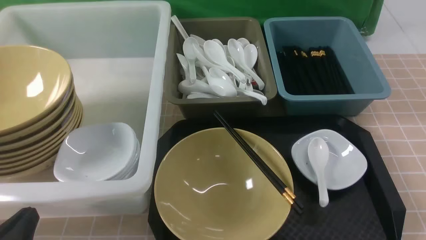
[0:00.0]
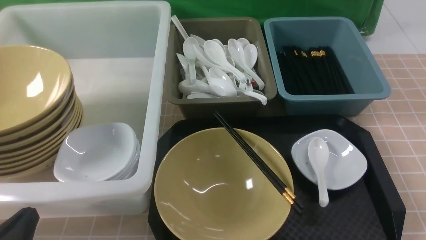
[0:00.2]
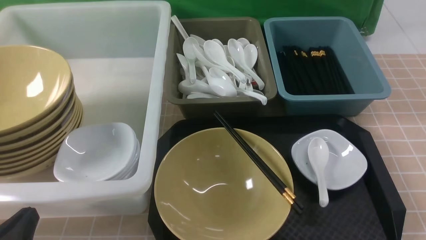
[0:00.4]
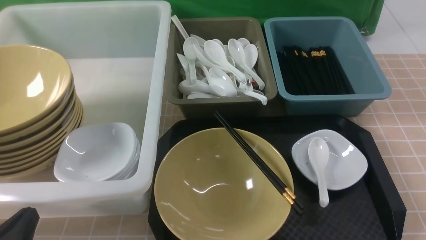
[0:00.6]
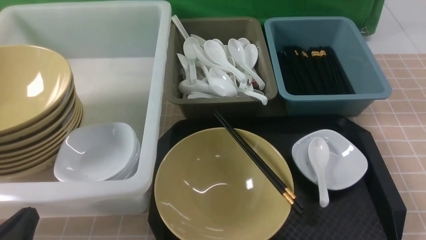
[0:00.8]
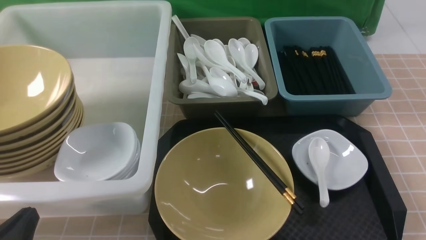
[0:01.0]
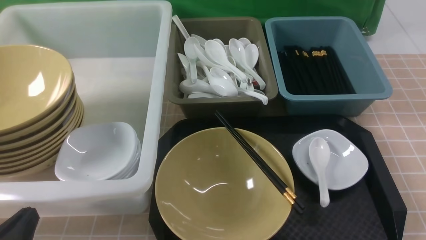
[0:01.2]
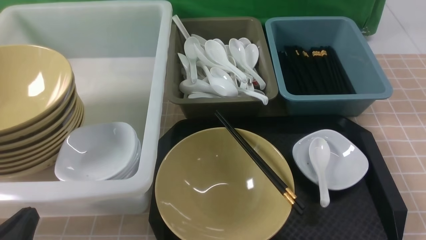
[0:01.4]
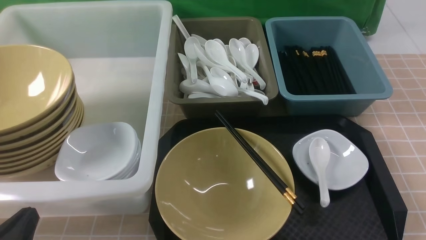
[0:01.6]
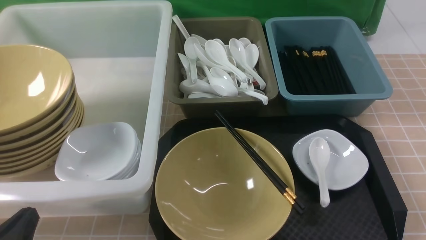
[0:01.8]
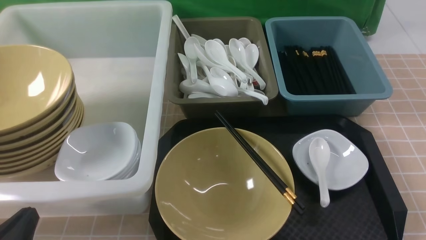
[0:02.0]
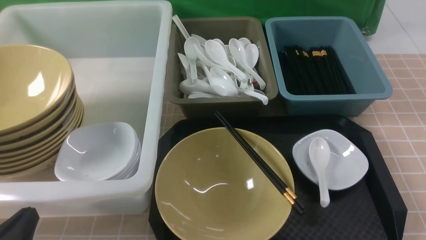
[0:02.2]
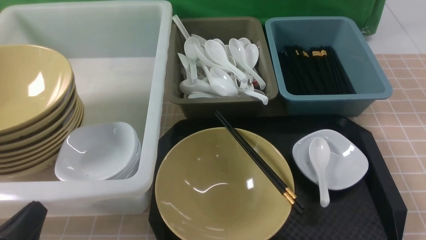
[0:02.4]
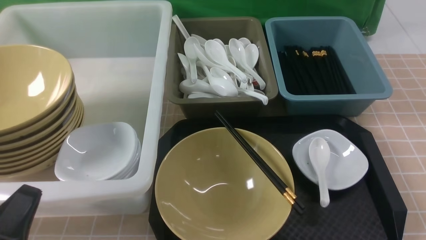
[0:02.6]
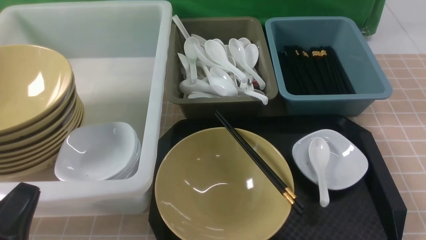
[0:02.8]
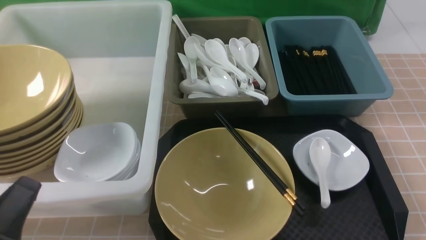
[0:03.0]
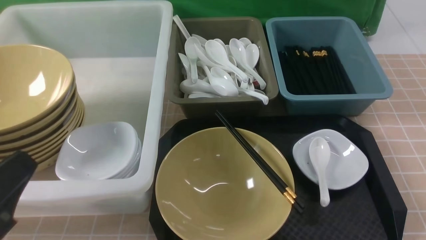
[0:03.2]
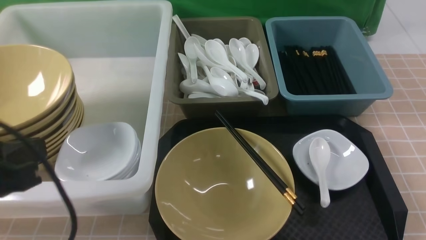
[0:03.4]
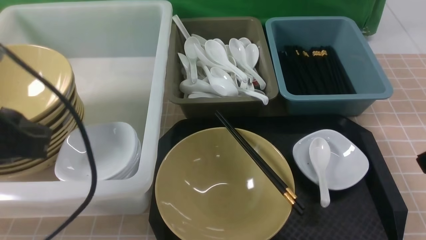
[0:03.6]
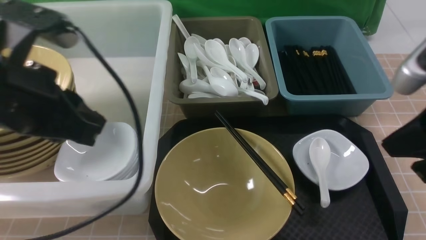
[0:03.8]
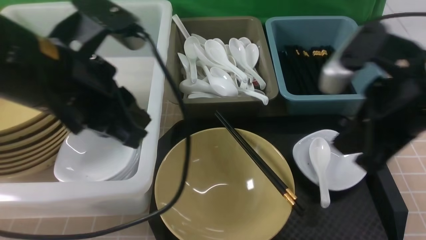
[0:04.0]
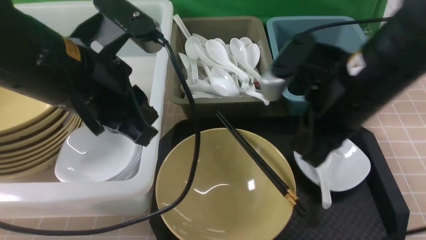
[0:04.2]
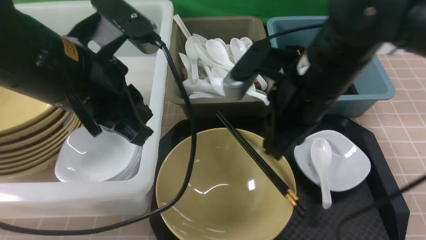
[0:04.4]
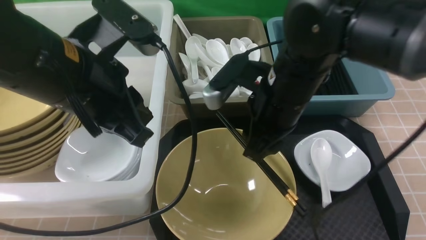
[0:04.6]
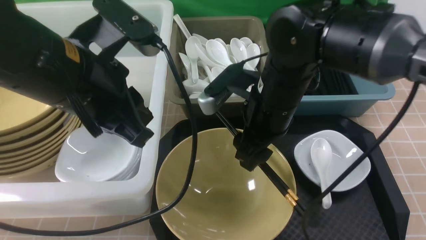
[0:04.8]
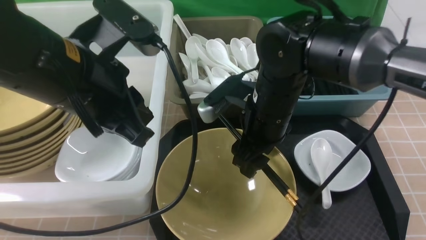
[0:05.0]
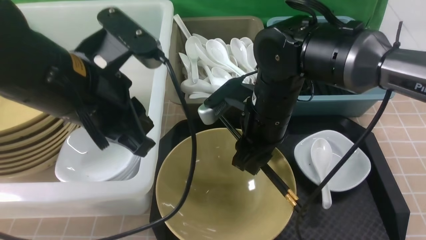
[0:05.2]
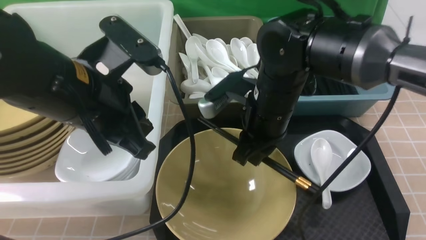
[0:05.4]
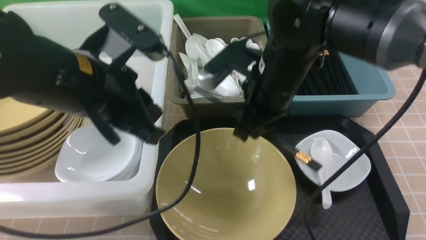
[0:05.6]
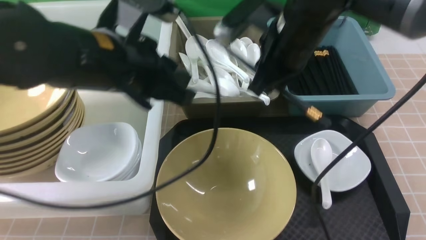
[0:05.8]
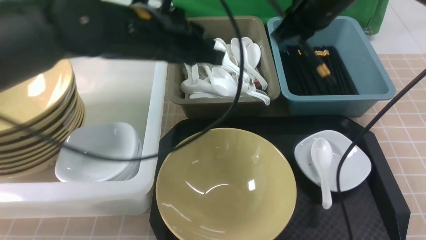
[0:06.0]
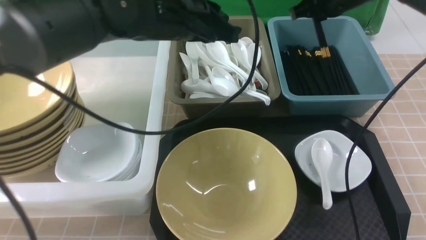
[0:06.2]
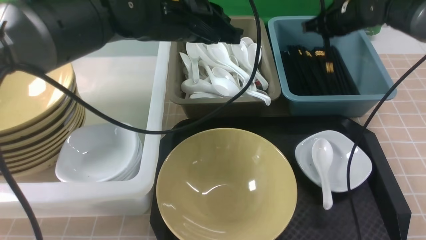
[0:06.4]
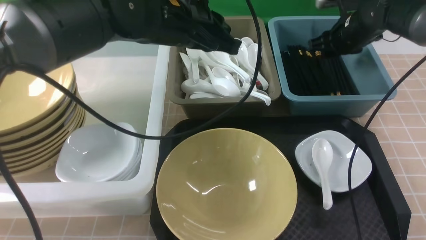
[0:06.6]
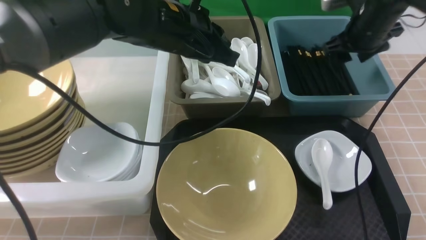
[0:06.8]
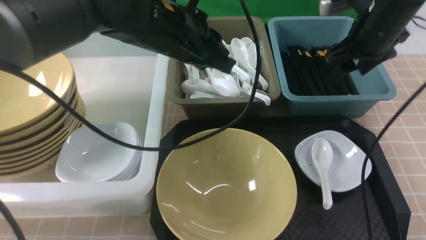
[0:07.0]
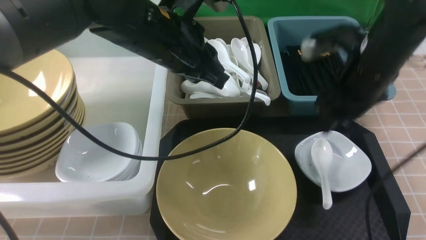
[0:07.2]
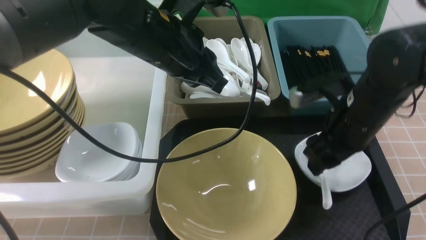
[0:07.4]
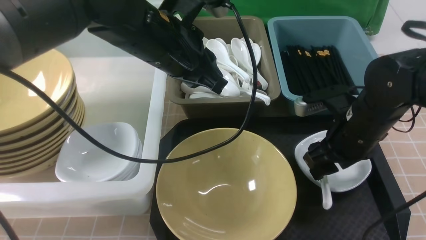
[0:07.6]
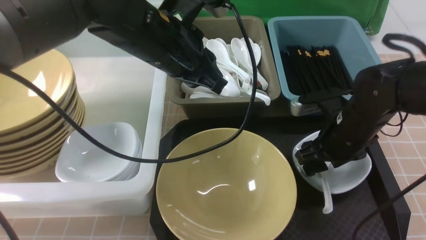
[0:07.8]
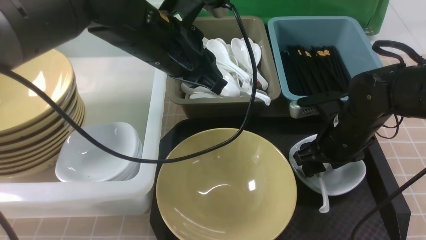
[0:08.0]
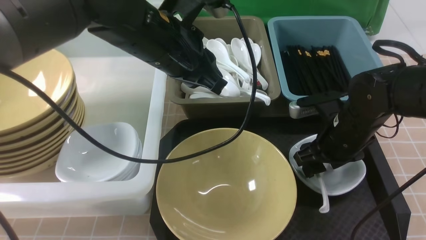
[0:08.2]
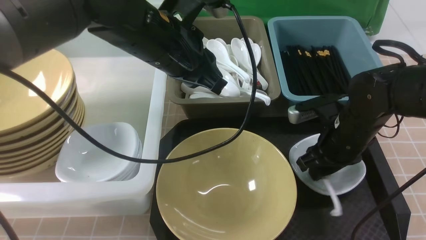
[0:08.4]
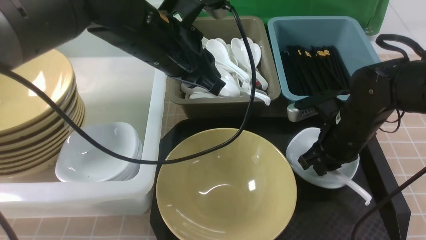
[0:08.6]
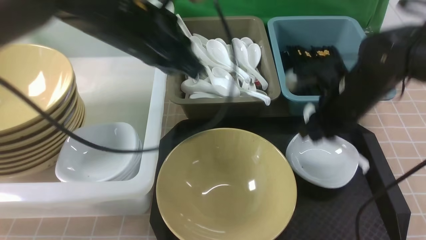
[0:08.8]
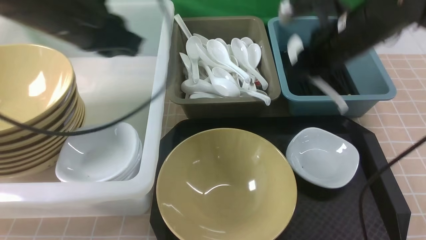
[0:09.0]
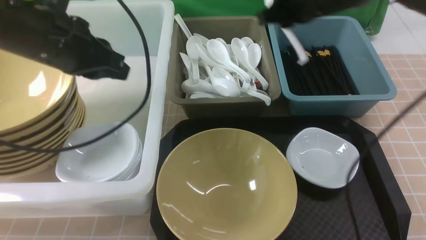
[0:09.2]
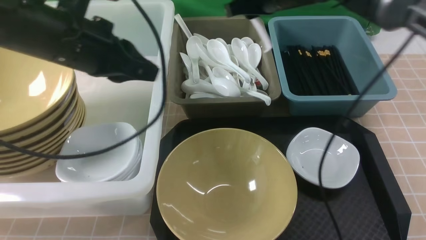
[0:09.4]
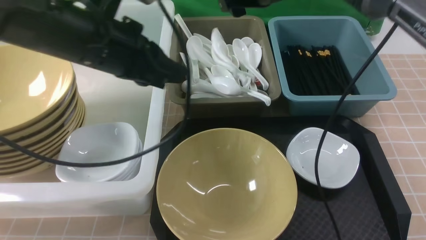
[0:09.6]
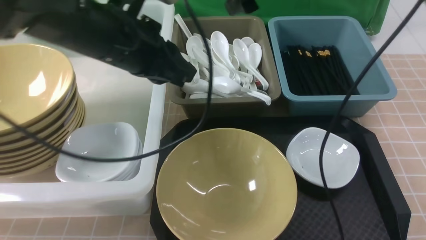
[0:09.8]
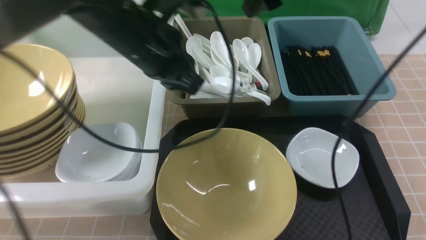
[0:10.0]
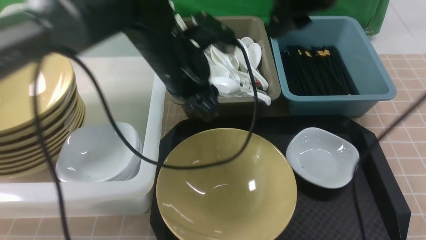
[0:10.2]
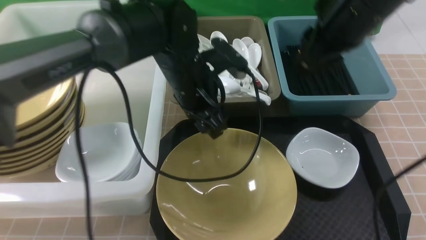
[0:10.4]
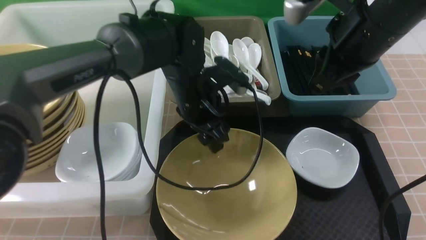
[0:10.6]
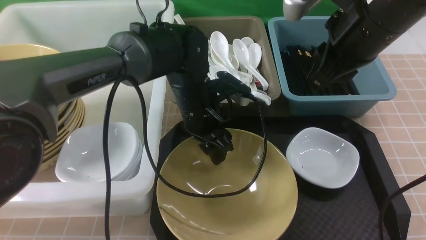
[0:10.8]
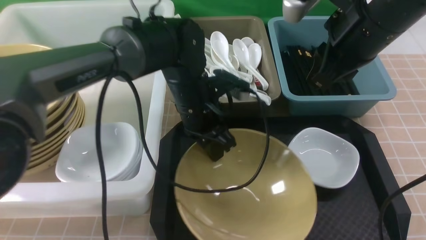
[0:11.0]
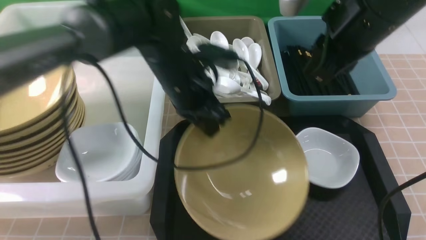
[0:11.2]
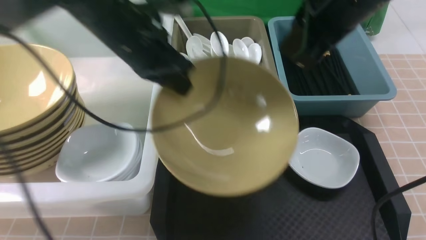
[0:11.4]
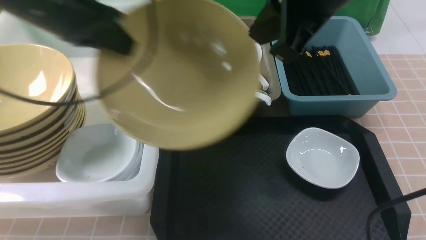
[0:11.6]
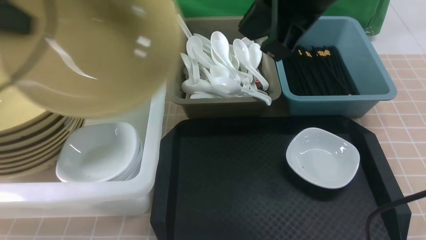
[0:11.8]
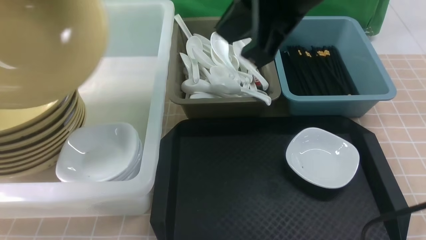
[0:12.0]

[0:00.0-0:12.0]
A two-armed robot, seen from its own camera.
Task of the whole recording: on brown table put chopsticks spoon bowls plates into blue grey white boxes.
Step, 0:00.0 to 0:05.4: use the right arm to grab the chopsticks.
Step, 0:05.6 to 0:06.6: use the right arm to put the chopsticks into the small storage box on the right.
Step, 0:07.0 to 0:08.6: use the right arm to grab the soup spoon in the middle.
Step, 0:09.0 to 0:09.6: use the right arm to put the soup spoon into the small storage box in the middle.
Step, 0:10.0 to 0:11.0: use the left arm to grab the yellow noodle bowl on the left.
0:03.0 to 0:04.4: The right gripper is displaced forward, to the left and upward by roughly 30 cm. Meanwhile the left gripper moves forward, upward and to the right, approximately 25 cm.
0:04.4 to 0:06.0: The right gripper heads forward, covering roughly 15 cm, and opens, then closes again; the left gripper moves forward, approximately 5 cm.
0:06.0 to 0:07.6: The right gripper goes some 15 cm downward, backward and to the right, and opens.
0:07.6 to 0:09.0: The right gripper goes some 10 cm upward and forward, and closes up. Meanwhile the left gripper travels to the left by roughly 10 cm.
0:09.0 to 0:10.4: The right gripper shifts some 10 cm upward, and opens, then closes once more; the left gripper moves to the right and downward, roughly 15 cm, and opens.
0:10.4 to 0:12.0: The left gripper travels to the left and upward by about 35 cm, and closes up; the right gripper heads backward, to the left and upward, covering some 10 cm, and closes up.

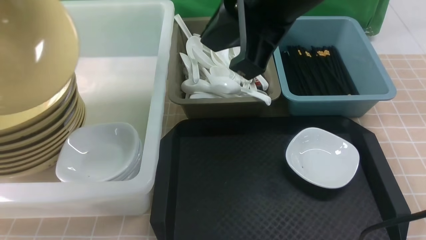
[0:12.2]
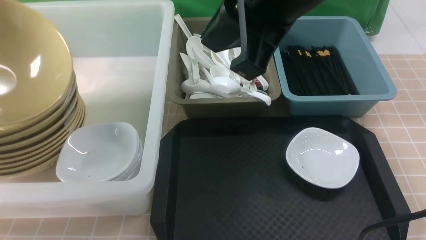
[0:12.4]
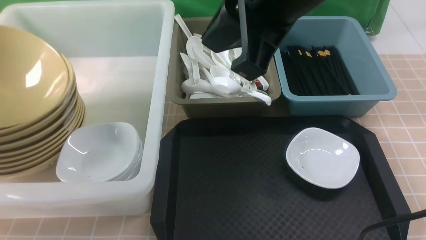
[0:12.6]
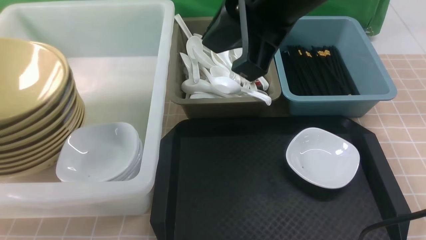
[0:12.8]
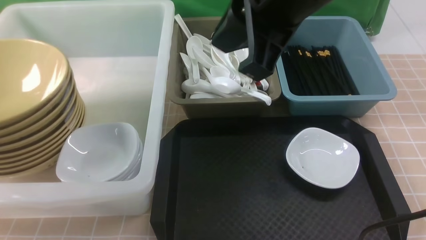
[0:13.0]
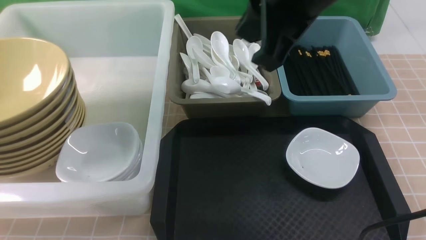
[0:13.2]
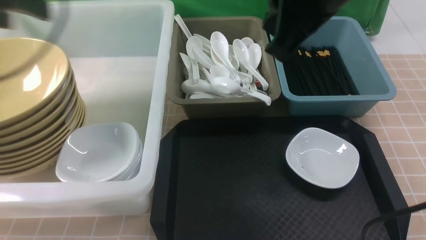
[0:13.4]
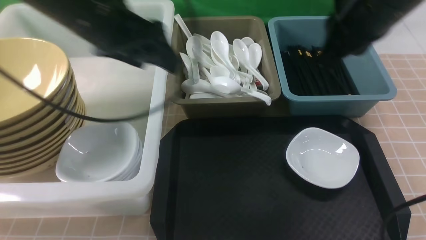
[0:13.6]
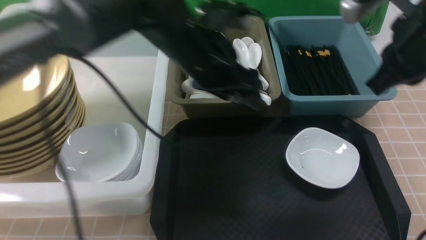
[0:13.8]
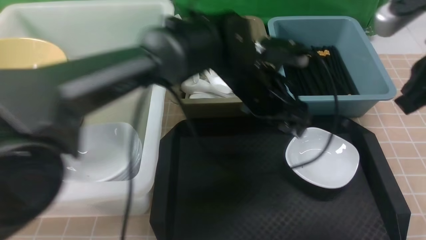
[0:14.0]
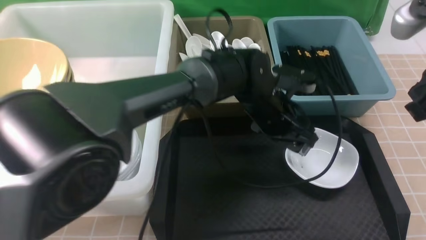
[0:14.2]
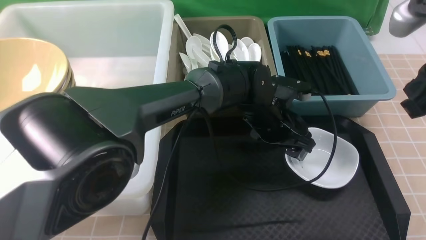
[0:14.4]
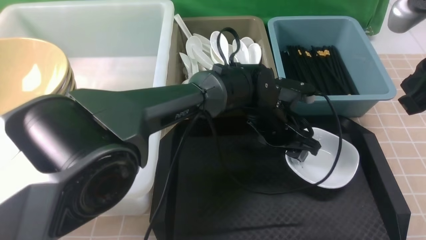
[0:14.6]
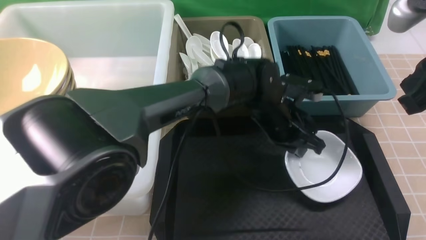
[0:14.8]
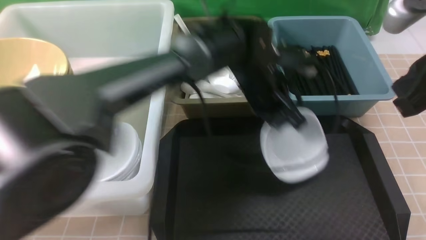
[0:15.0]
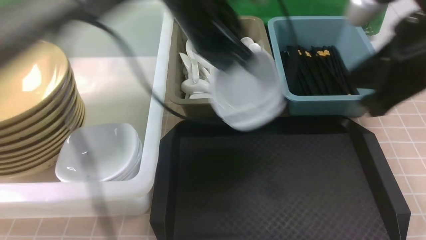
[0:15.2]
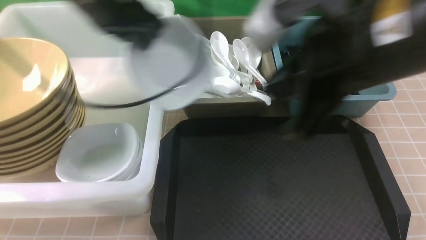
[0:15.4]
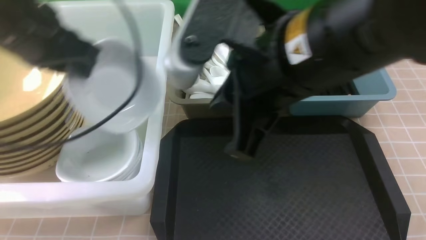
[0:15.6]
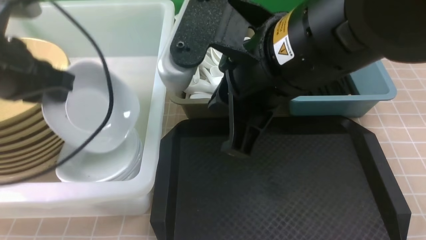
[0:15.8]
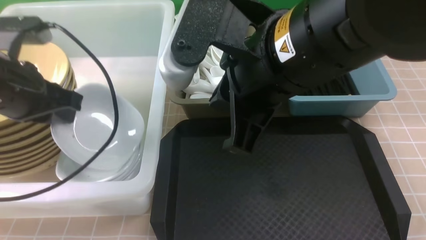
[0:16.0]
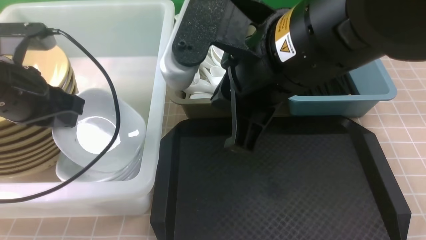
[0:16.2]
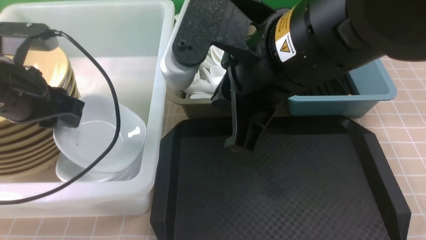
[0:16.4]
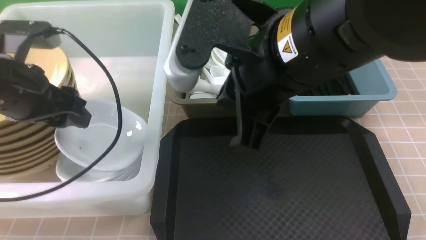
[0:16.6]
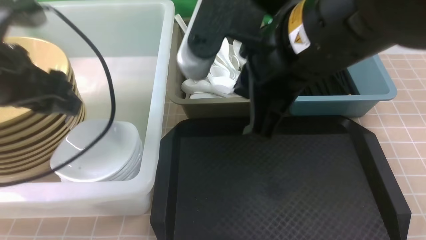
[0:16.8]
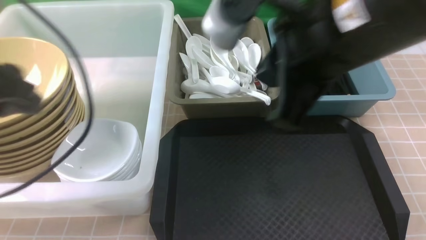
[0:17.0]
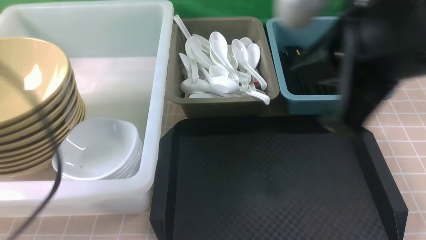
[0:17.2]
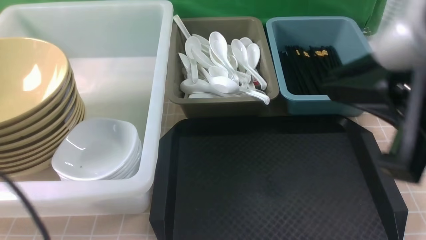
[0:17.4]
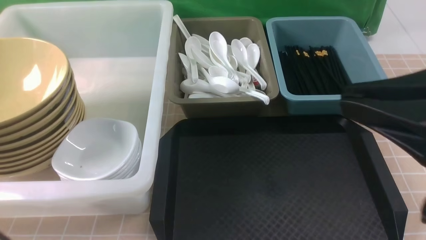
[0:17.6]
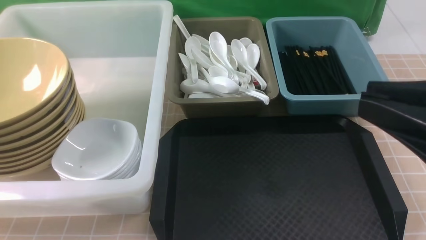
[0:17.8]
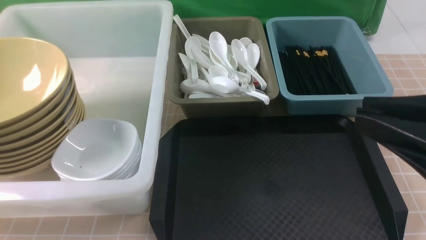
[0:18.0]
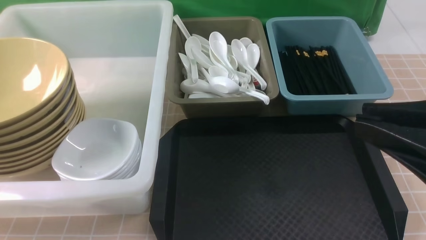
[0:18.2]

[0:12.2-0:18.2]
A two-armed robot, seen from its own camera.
Task of the whole recording: on brown table put chopsticks spoon bowls plates into blue grey white boxes.
Step, 0:13.2 to 0:14.6: use the left arm to grab the plate.
Step, 0:15.0 to 0:16.8: use the left arm to put the plate into the large storage box on the left.
0:12.2 to 0:13.8: The left gripper moves to the right, some 30 cm, and opens its fingers. Meanwhile the right gripper heads to the right and downward, covering roughly 15 cm.
0:13.8 to 0:15.2: The right gripper is displaced backward by approximately 5 cm. The left gripper shifts about 5 cm to the right, reaches about 15 cm downward, then returns, and closes.
0:15.2 to 0:16.6: The right gripper goes roughly 15 cm to the left, while the left gripper shifts roughly 25 cm to the left and backward, and opens its fingers.
0:16.6 to 0:18.2: The right gripper moves to the right and backward, roughly 20 cm. Meanwhile the left gripper shifts roughly 25 cm backward, and closes.
